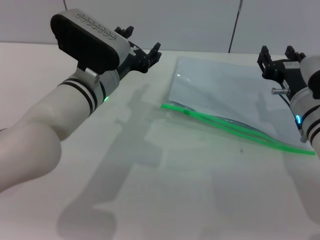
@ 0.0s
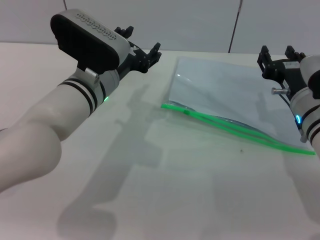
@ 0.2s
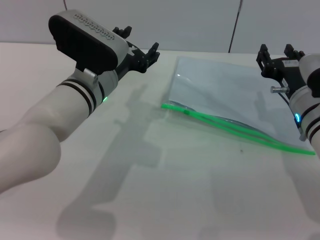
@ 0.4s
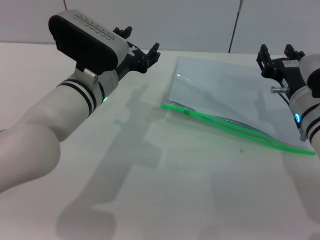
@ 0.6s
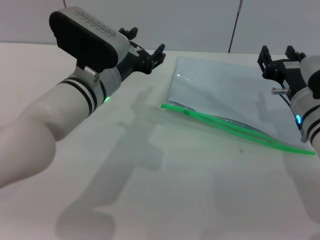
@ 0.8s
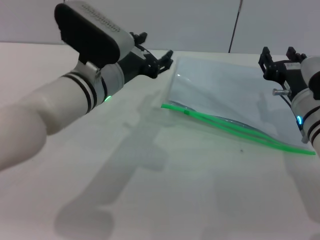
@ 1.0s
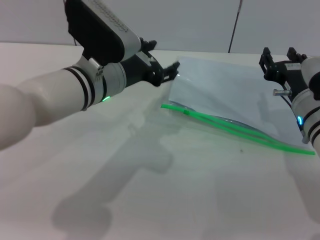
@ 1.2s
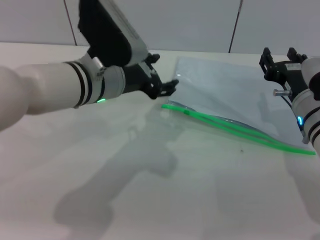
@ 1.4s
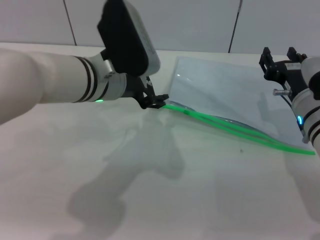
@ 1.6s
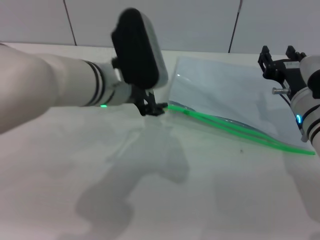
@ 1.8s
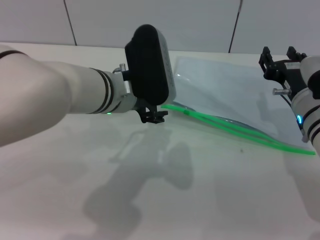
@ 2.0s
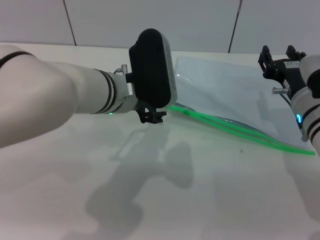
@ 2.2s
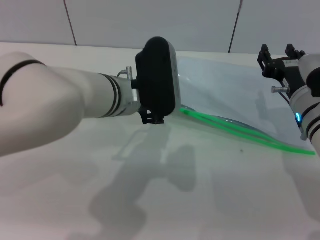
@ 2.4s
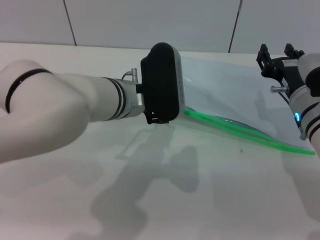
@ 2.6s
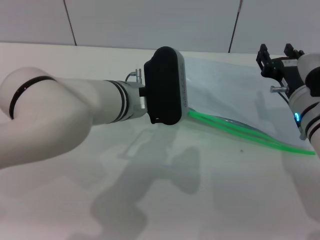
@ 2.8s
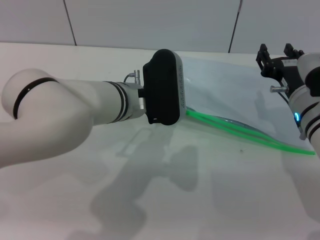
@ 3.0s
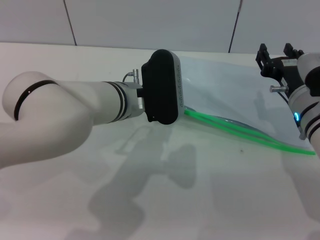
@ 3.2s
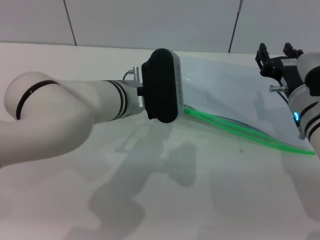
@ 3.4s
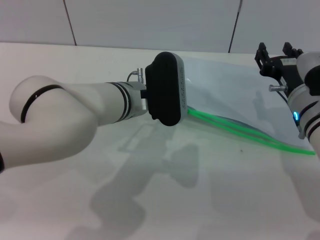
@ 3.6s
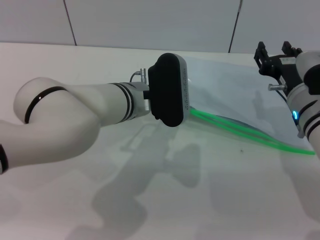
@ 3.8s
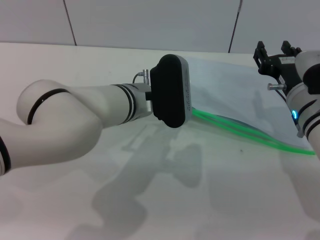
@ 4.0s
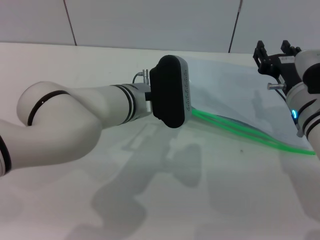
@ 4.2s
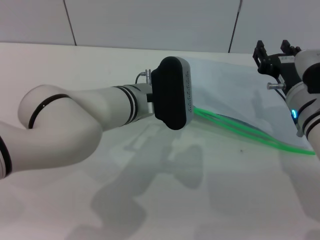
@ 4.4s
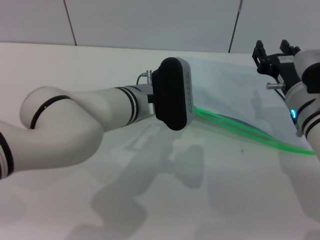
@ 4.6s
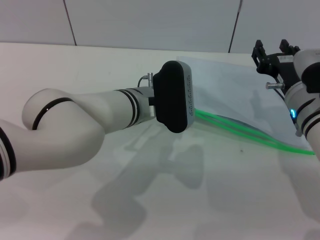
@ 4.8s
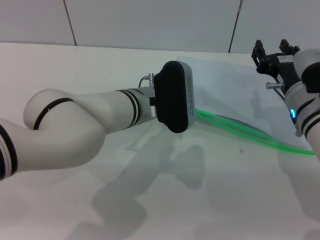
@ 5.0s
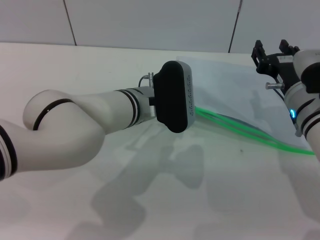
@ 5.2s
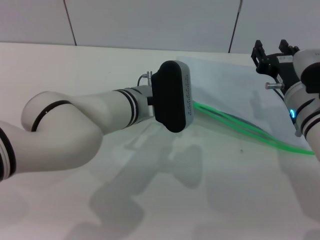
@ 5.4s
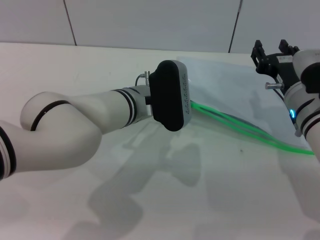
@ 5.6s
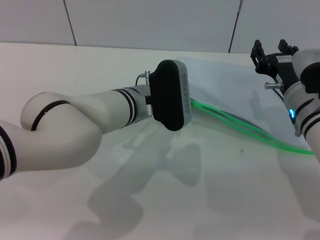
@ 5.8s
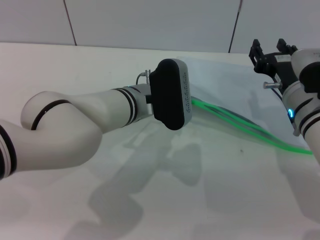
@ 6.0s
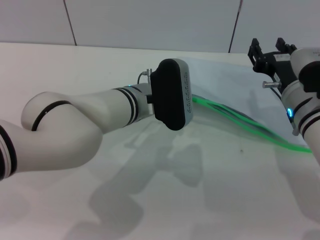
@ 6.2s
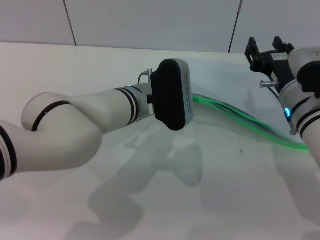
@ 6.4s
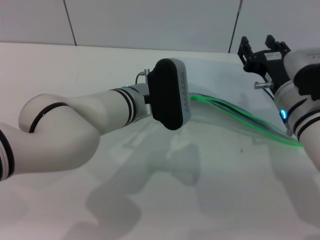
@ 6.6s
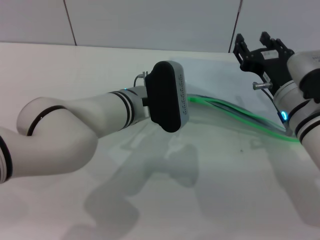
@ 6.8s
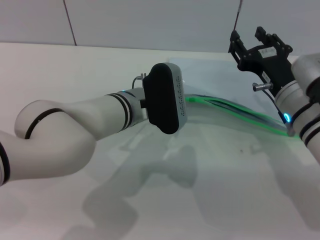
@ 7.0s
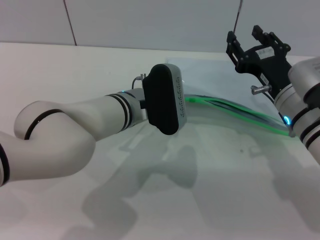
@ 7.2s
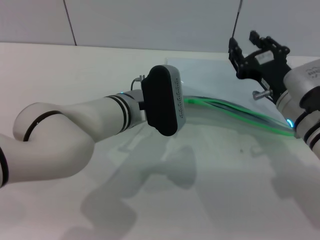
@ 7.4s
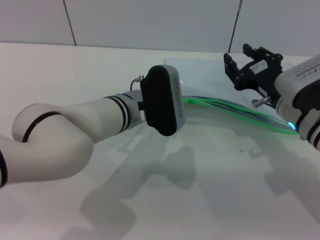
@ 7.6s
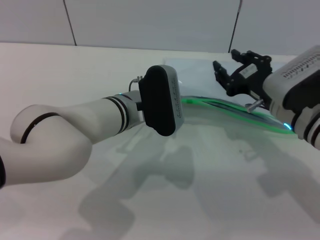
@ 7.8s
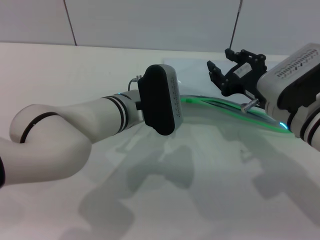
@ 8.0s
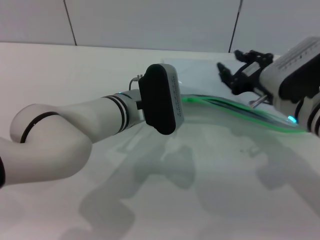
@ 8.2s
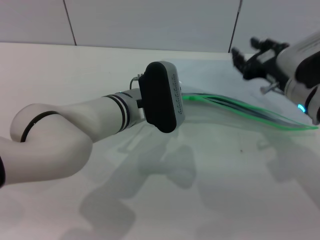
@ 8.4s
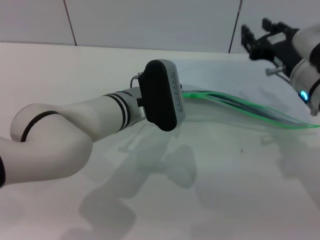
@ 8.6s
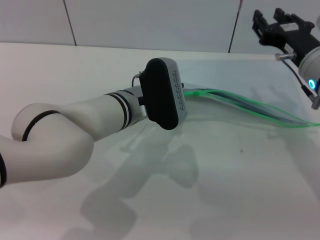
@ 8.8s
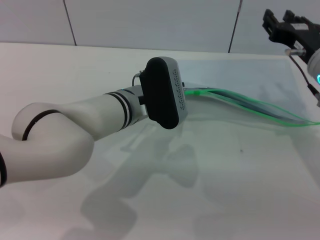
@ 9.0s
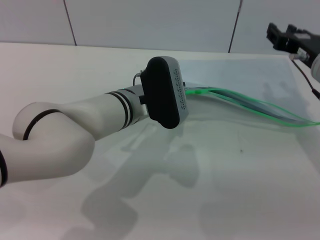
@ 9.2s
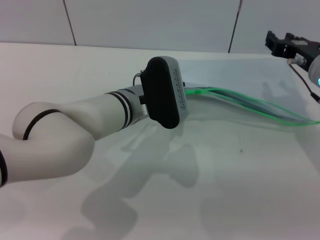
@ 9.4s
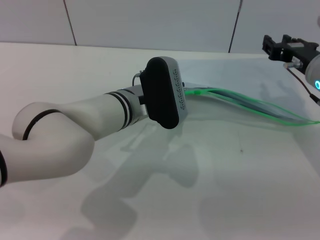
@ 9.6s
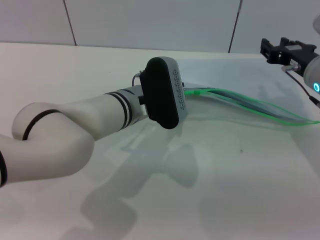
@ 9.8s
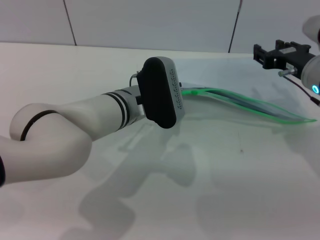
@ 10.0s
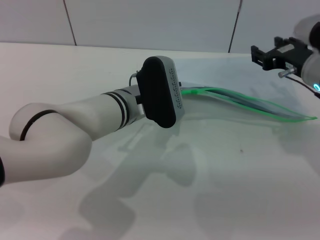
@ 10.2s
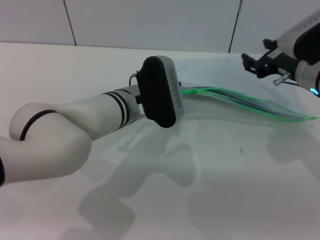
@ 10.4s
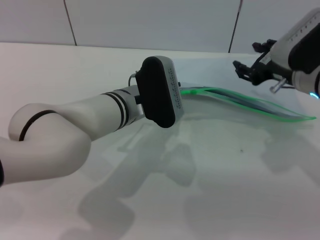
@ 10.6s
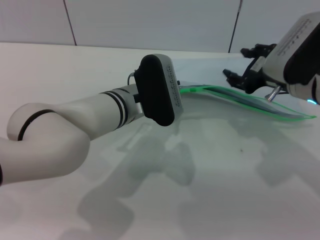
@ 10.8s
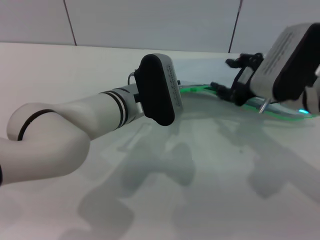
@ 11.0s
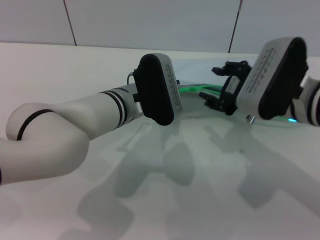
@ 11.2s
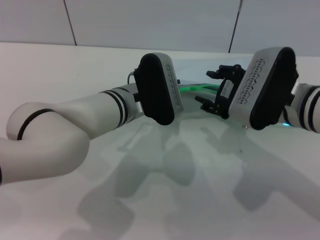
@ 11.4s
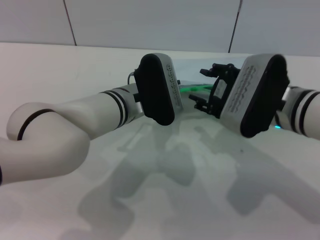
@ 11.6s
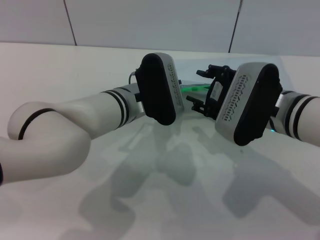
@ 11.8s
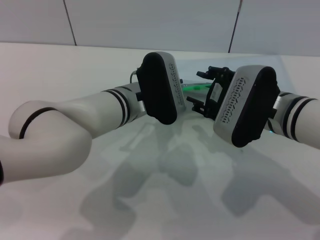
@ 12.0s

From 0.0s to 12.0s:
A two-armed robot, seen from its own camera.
Step, from 0.0s to 10.6s: Pick up the transparent plastic bag with the left gripper.
From 1.6s to 3.0s: The left gripper moves approximately 5 cm.
From 3.0s to 4.4s: The grippers move only a little.
From 4.4s to 6.0s: The left gripper closes its fingers.
From 7.6s to 9.0s: The right gripper shifts by roughly 5 cm.
From 10.4s to 12.0s: The right gripper heads to the left and backward, covering some 10 cm.

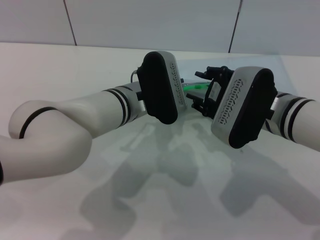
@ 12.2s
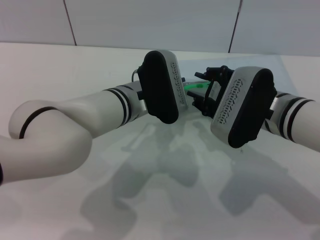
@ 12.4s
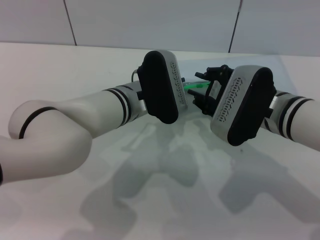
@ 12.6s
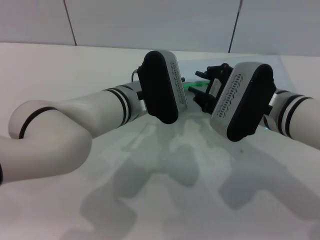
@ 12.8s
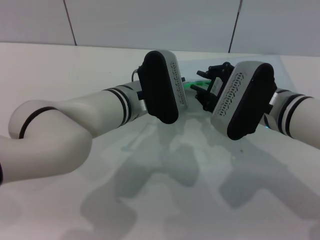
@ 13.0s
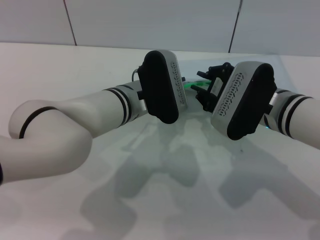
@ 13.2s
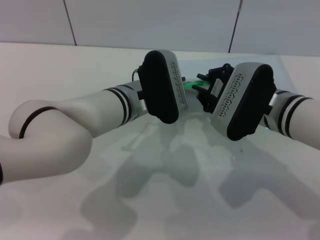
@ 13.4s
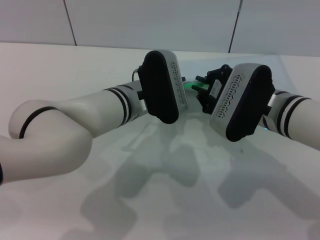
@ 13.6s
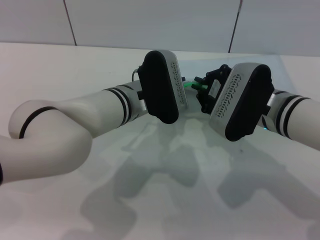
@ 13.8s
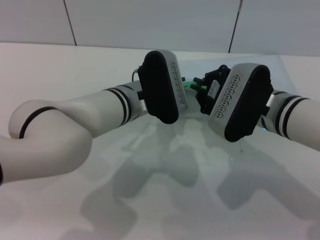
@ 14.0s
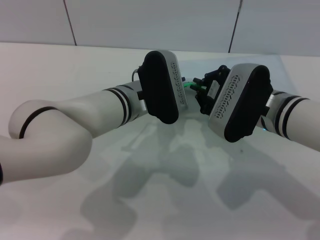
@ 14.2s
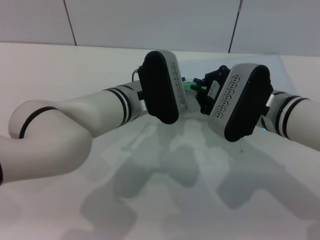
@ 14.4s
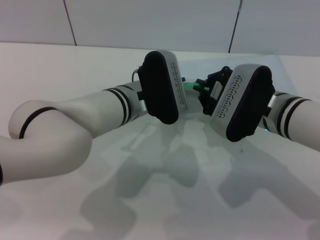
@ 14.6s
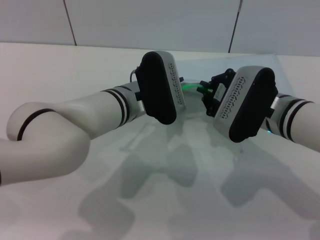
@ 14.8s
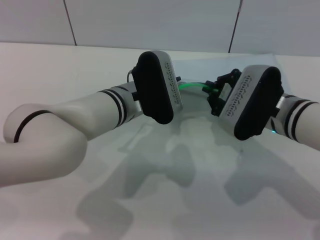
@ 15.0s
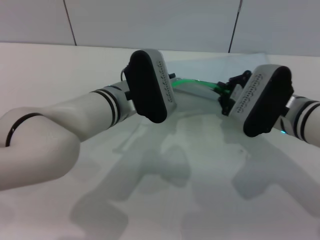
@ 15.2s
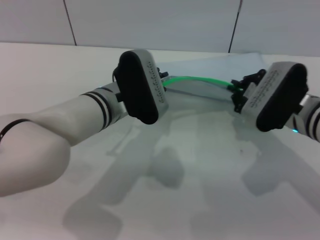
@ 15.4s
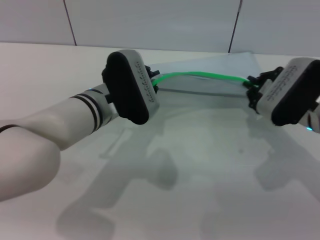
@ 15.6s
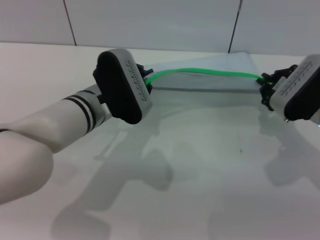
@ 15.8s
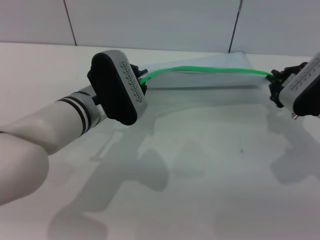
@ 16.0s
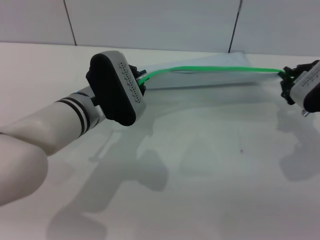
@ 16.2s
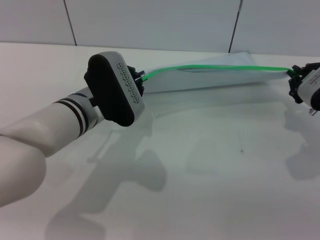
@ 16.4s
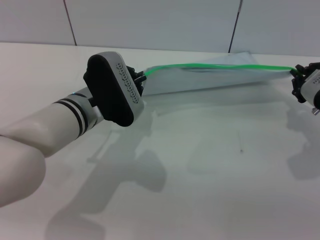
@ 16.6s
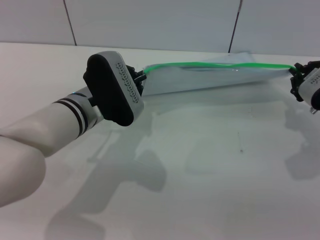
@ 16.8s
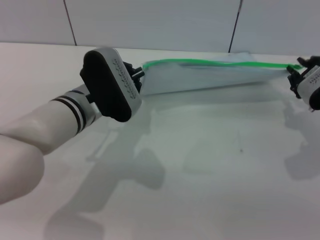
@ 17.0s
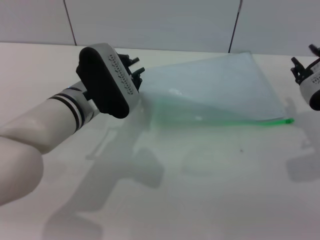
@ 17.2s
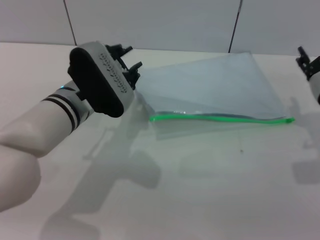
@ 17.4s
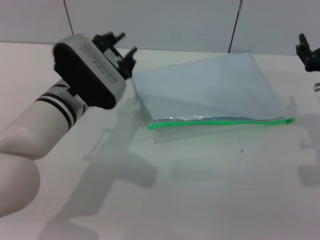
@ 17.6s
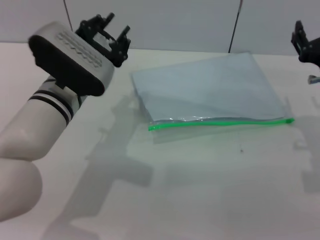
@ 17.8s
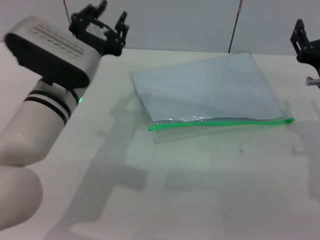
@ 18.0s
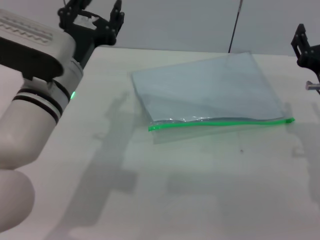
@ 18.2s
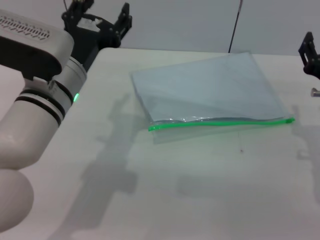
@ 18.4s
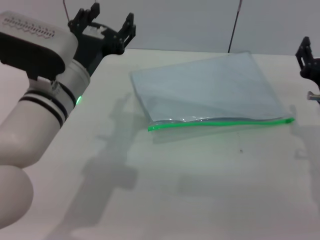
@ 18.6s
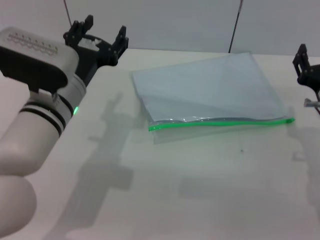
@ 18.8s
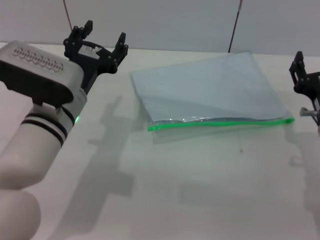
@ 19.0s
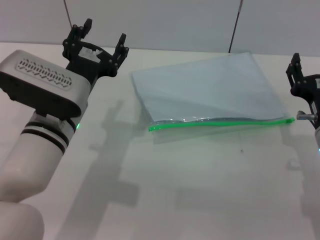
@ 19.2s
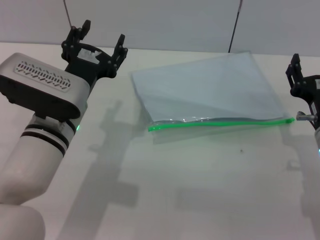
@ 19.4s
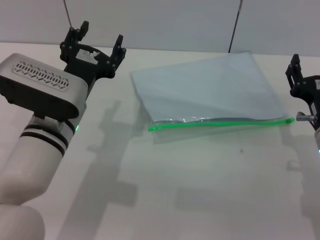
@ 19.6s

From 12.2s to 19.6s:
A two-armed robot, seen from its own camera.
Step, from 12.2s to 17.0s: Pulling up the zipper on the transparent plastic bag with the right gripper to close it.
Step, from 17.2s to 17.4s: Place the transparent plastic bag.
From 12.2s to 13.6s: The right gripper closes.
From 13.6s to 15.2s: The grippers stay close to where they were, moving slightly.
From 15.2s to 16.6s: The right gripper goes some 10 cm to the right.
From 16.6s to 18.2s: The left gripper changes place by roughly 5 cm, and opens up; the right gripper ends up approximately 5 cm from where it was, and opens its fingers.
From 18.2s to 19.6s: The left gripper opens up.

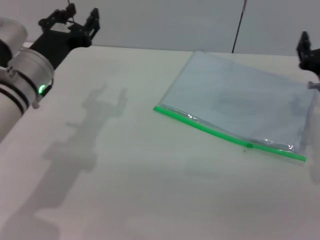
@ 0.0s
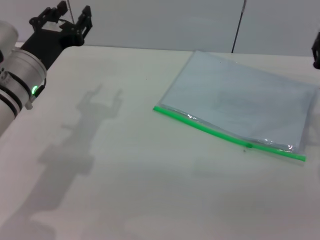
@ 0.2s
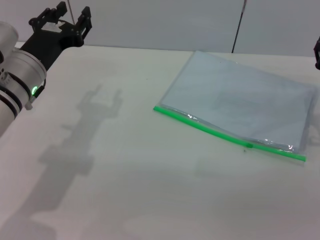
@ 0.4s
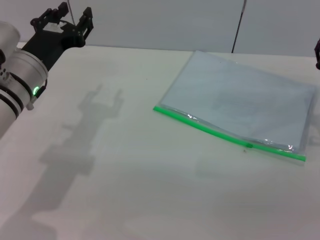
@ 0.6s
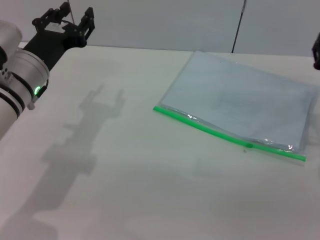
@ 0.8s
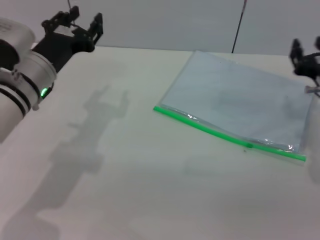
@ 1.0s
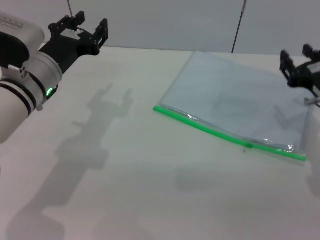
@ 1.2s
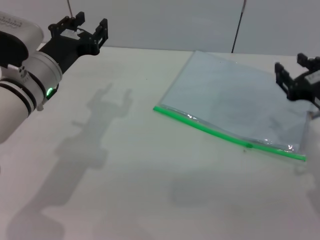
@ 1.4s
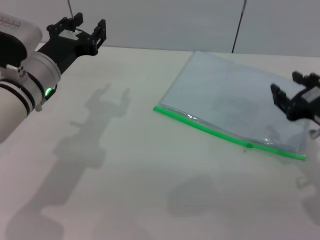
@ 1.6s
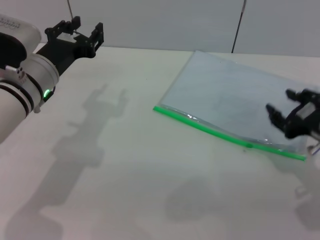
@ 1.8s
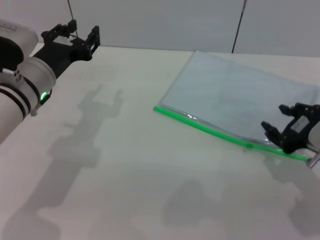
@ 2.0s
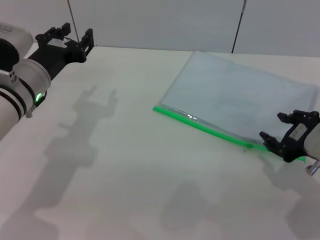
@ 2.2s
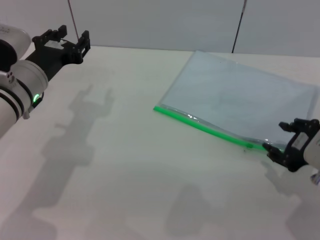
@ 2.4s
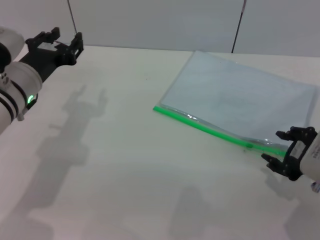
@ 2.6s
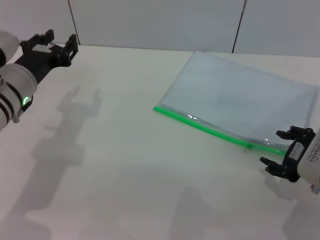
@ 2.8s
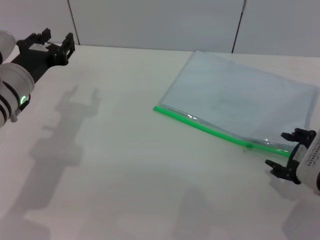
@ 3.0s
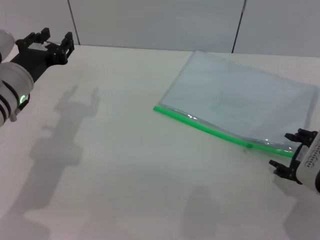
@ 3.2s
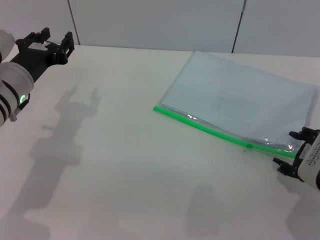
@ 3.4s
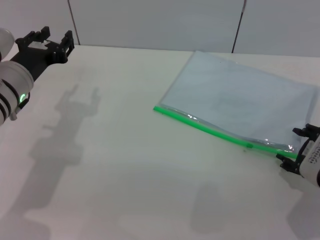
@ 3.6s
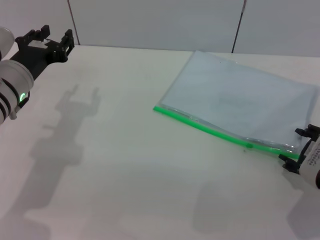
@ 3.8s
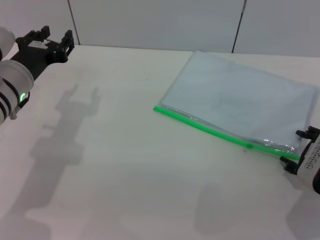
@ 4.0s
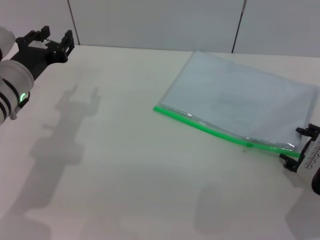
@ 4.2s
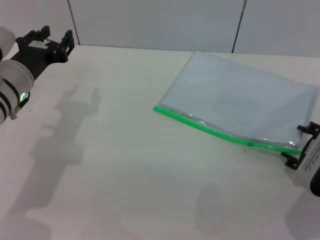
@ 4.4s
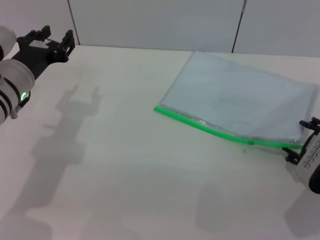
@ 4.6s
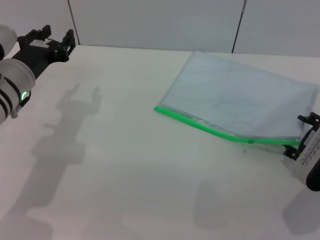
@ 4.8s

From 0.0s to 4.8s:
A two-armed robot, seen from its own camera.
From 0.0s to 1.6s: The right gripper shifts about 5 cm backward.
From 3.2s to 4.8s: The grippers make only small movements.
